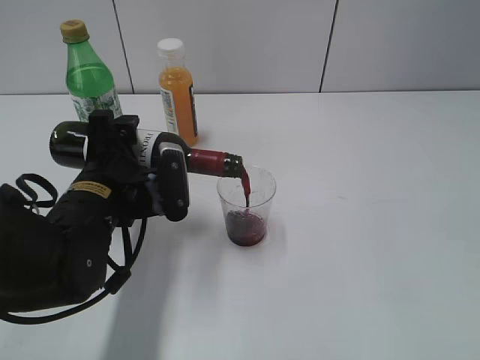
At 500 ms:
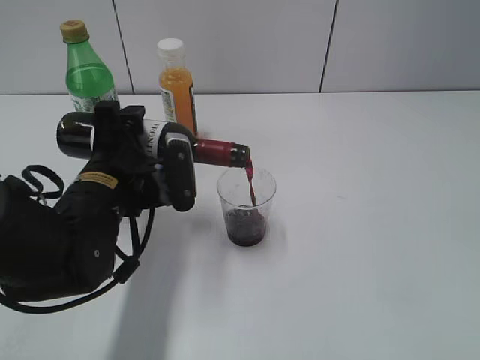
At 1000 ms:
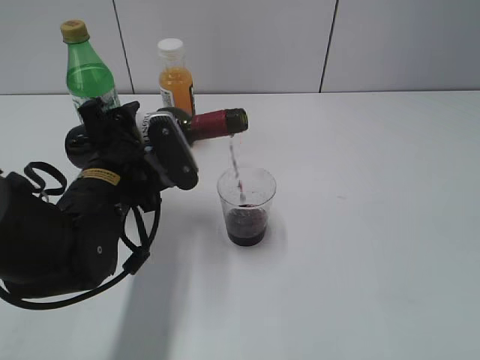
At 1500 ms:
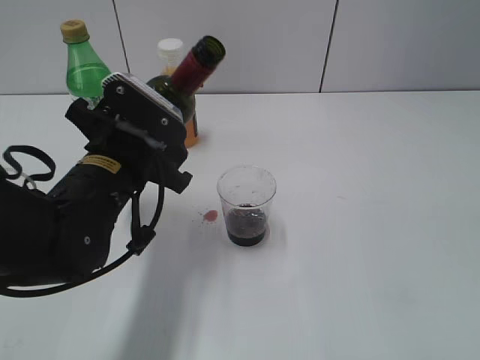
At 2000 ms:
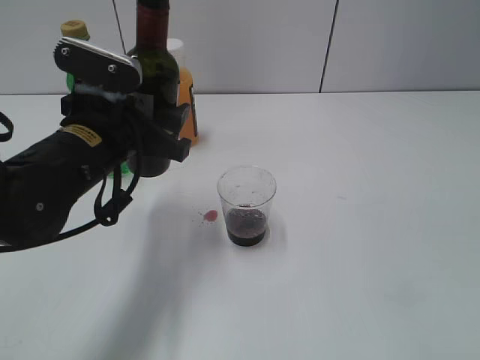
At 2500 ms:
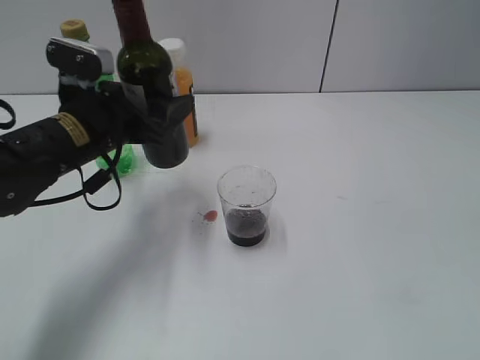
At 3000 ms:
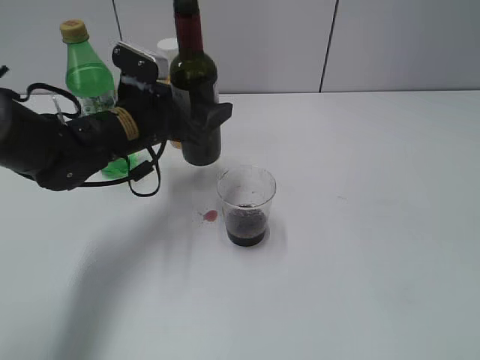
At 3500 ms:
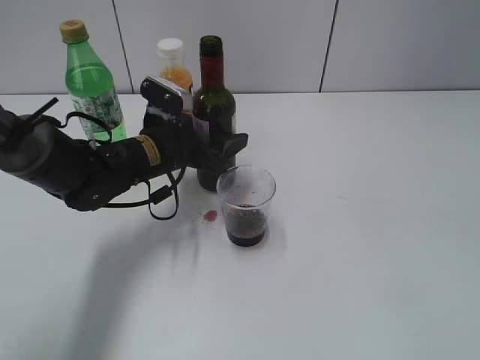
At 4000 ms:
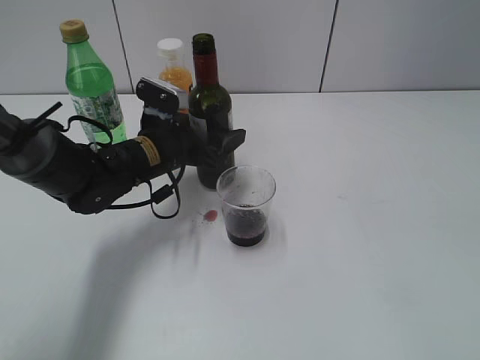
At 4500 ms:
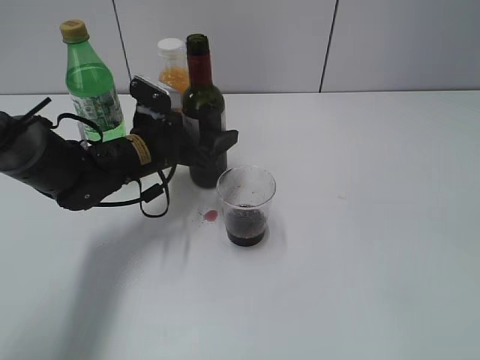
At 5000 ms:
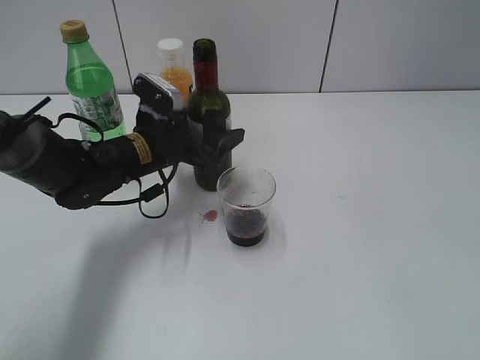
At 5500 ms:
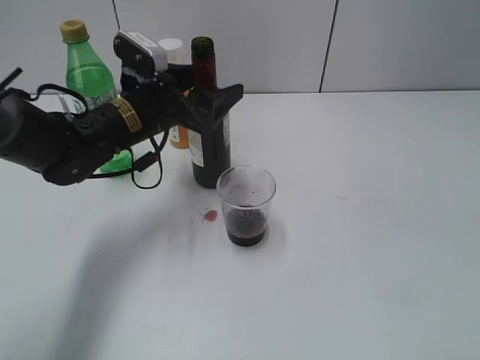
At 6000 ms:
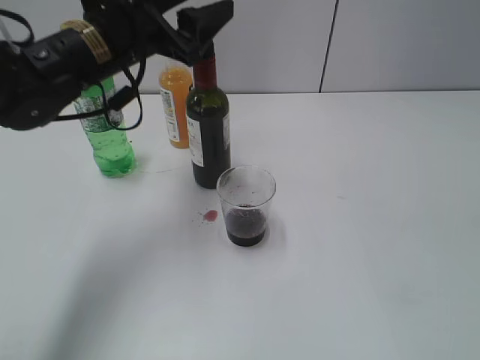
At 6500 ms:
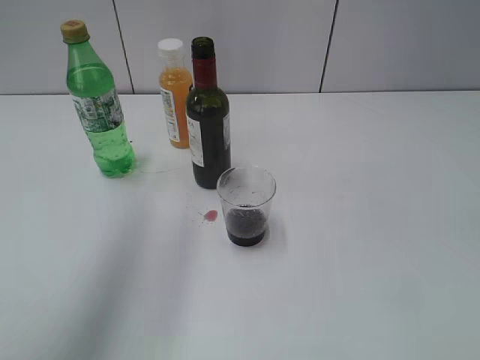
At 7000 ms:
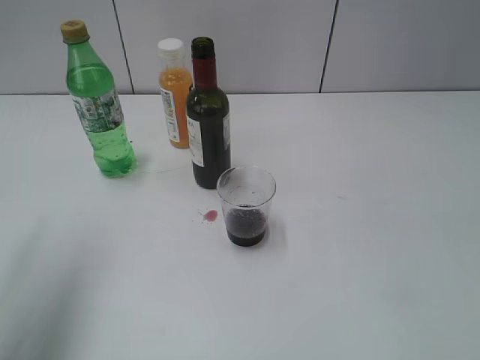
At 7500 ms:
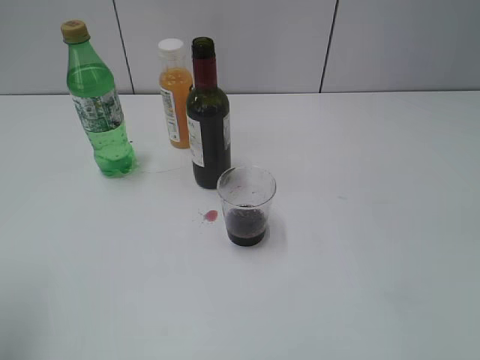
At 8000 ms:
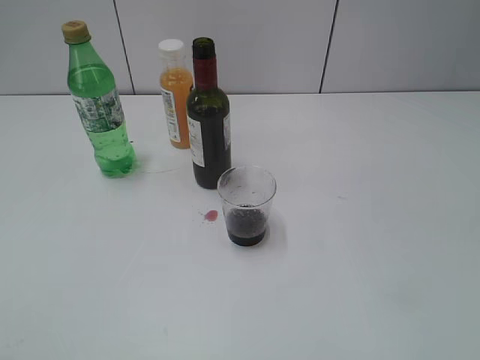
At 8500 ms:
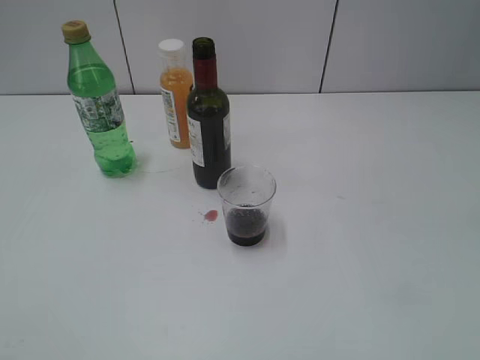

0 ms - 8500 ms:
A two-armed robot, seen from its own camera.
Step, 1500 ms - 5500 ms: Place the red wine bottle on the table with left gripper.
0 ms - 2000 ms: The left gripper shifts roughly 5 cm upward.
2000 ms - 4000 ms: The left gripper moves forward and downward, roughly 15 cm.
4000 ms - 6500 ms: The left gripper heads upward, covering roughly 30 cm.
6500 ms - 8500 ms: The left gripper travels backward and downward by roughly 30 cm.

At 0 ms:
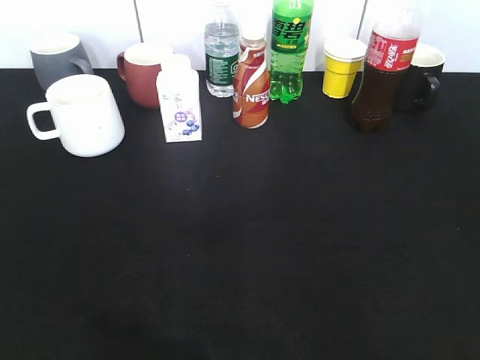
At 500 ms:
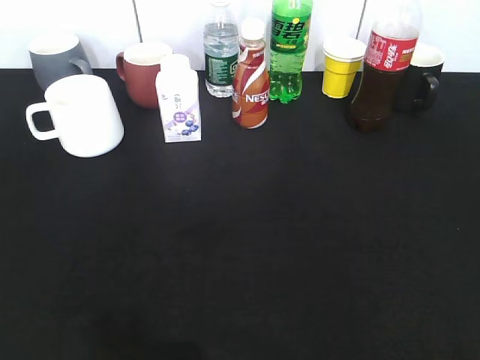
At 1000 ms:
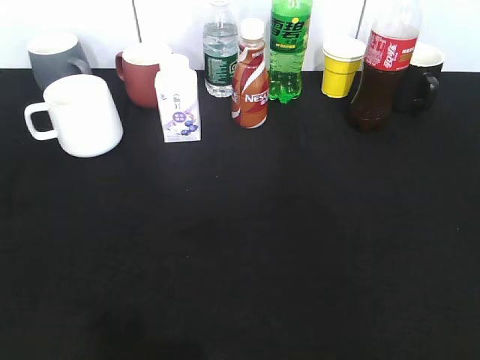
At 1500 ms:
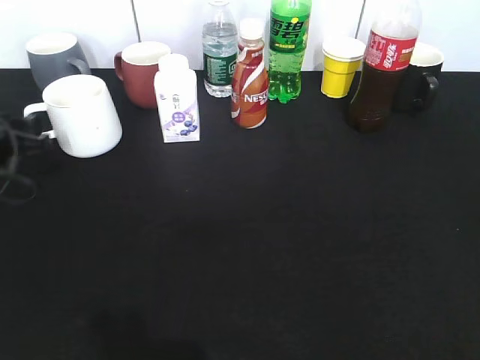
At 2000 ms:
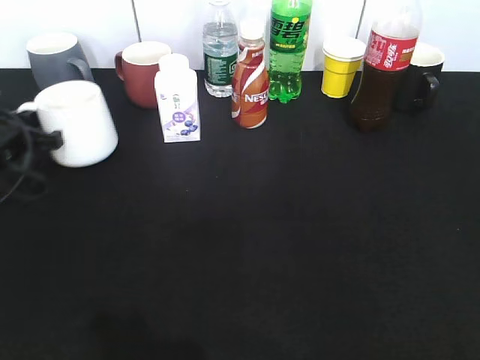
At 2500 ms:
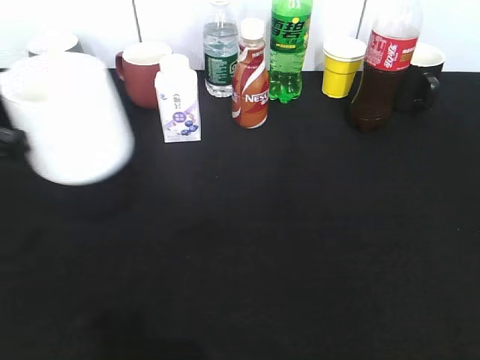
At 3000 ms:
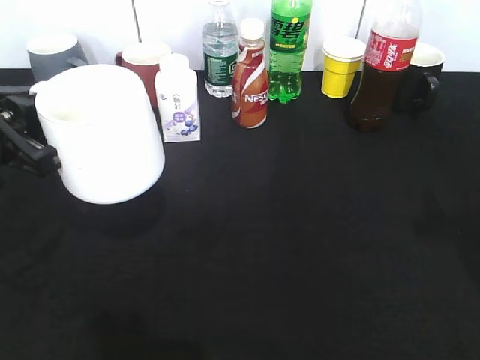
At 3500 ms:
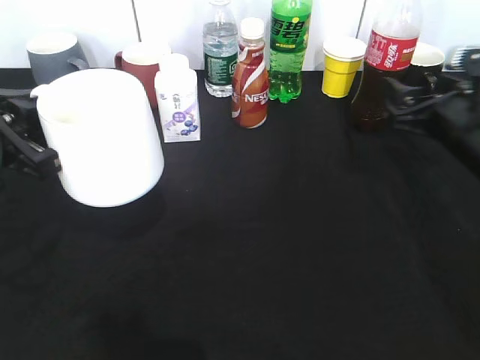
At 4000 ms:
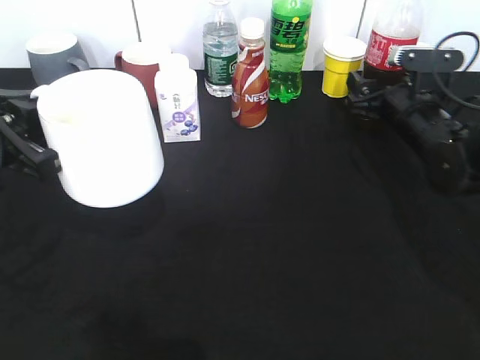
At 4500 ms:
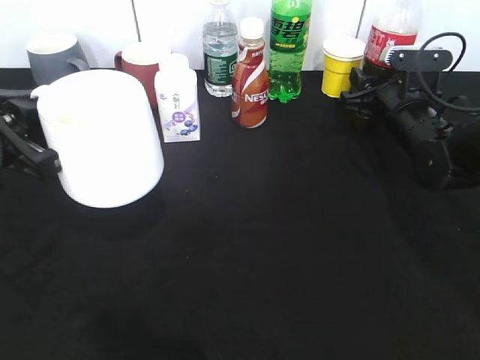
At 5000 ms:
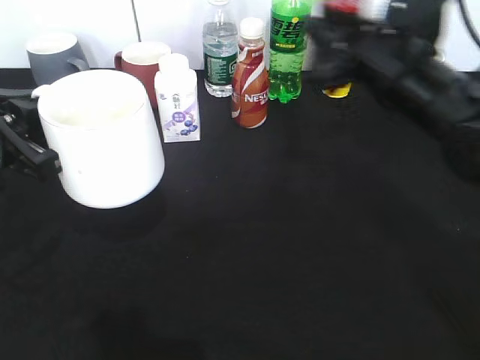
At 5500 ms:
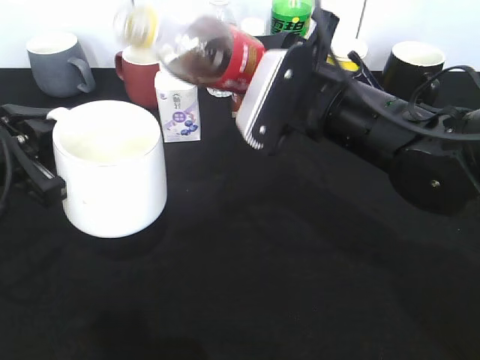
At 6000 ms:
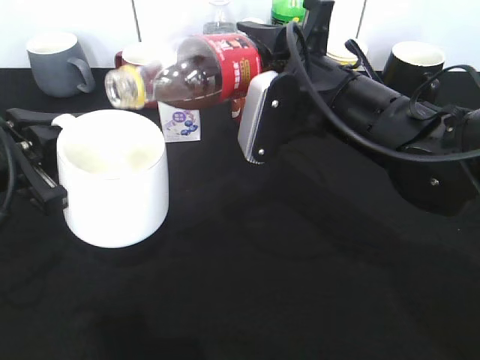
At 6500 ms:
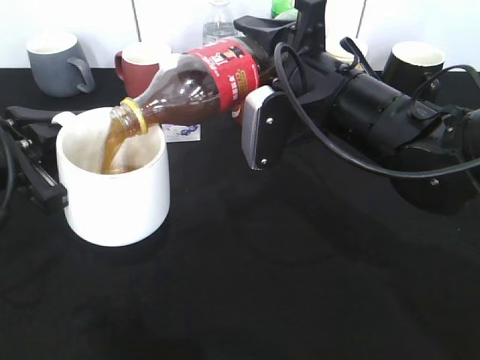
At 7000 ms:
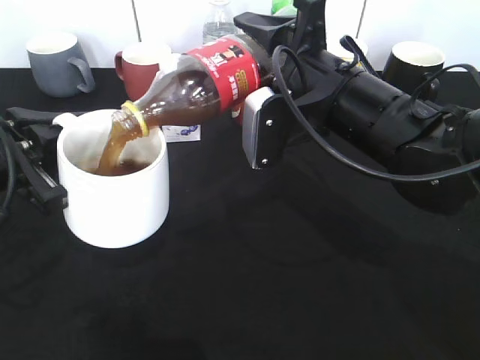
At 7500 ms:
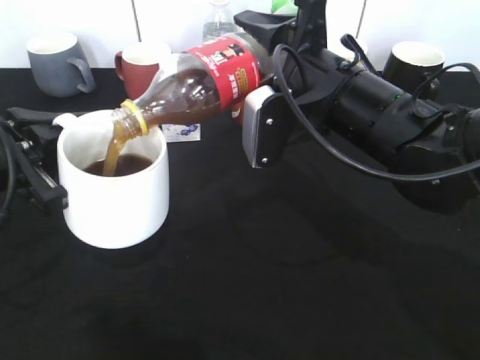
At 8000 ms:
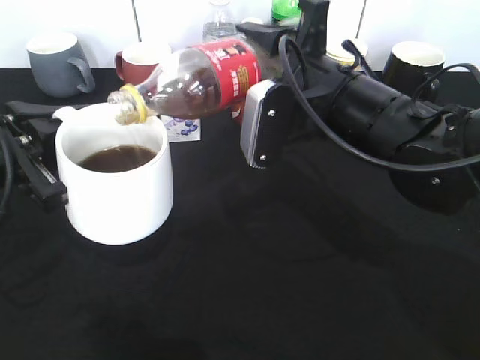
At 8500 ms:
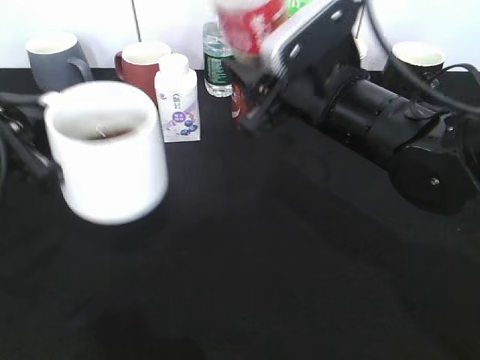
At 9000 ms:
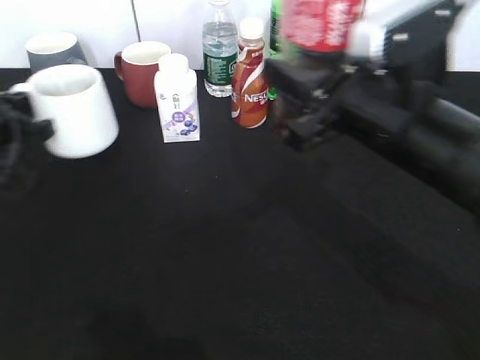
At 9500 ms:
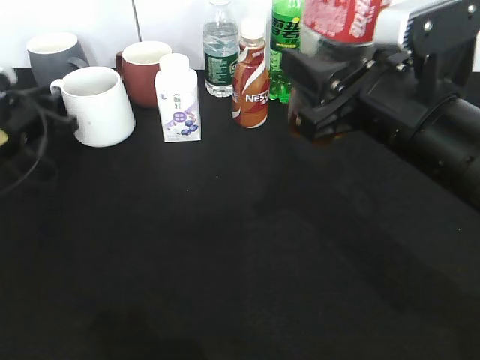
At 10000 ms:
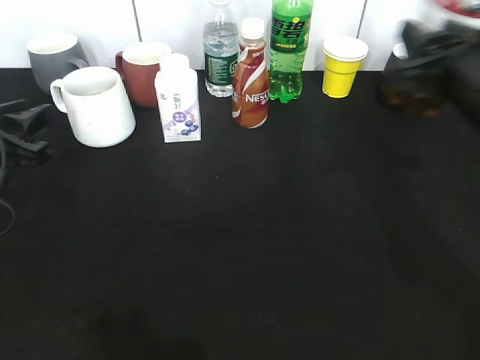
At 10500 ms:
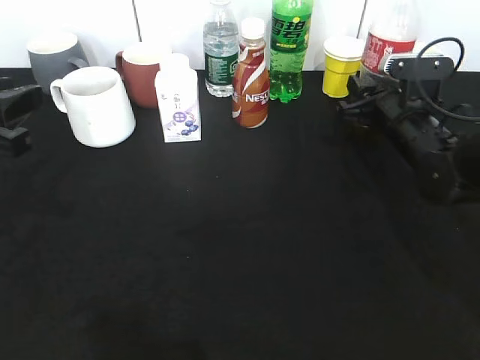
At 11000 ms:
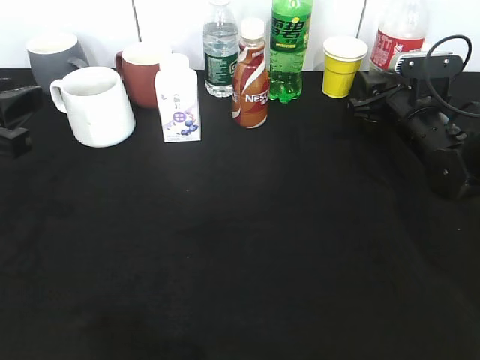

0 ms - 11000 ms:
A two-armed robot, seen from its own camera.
Step, 0 ms - 1500 ms: Grasp the white cup with left gripper.
Step, 2000 ms - 3000 ms: Lift the white cup with left gripper.
Step, 3500 ms - 4000 ms: Grasp the bottle with cola with right gripper.
Step, 4500 ms - 8000 ms: Pour the cola from bottle to cup with right gripper.
Step, 8500 ms - 9500 ms: Place the white cup on the table with left gripper.
0 ms - 2000 ms: The left gripper is displaced forward and downward by about 35 cm, and closes up.
2000 ms - 3500 ms: The right gripper shifts some 30 cm forward. Meanwhile the left gripper moves backward, upward and to the right, approximately 15 cm.
3500 ms - 5500 ms: The right gripper goes roughly 15 cm to the left, and closes.
7500 ms - 9000 ms: The right gripper goes approximately 5 cm backward, while the left gripper travels forward, to the left and downward by about 15 cm.
9000 ms - 11000 ms: The right gripper moves forward, downward and to the right, roughly 25 cm. Meanwhile the left gripper moves backward and upward, about 15 cm, and opens.

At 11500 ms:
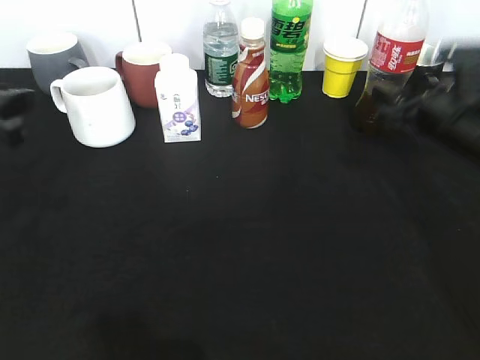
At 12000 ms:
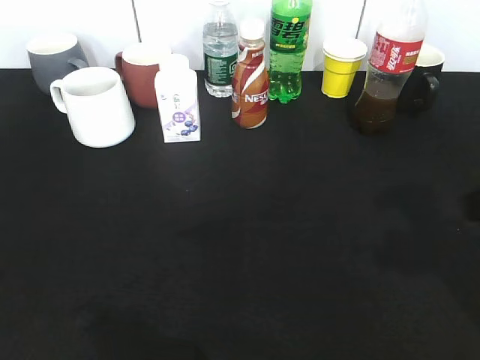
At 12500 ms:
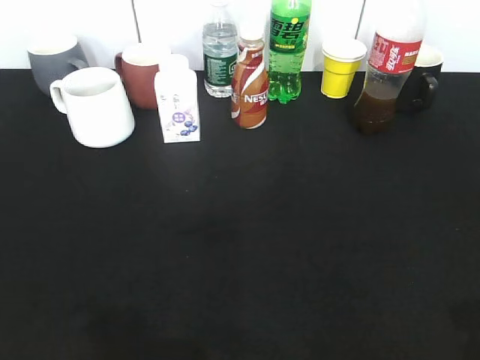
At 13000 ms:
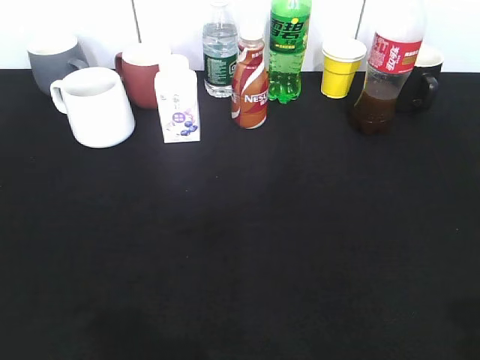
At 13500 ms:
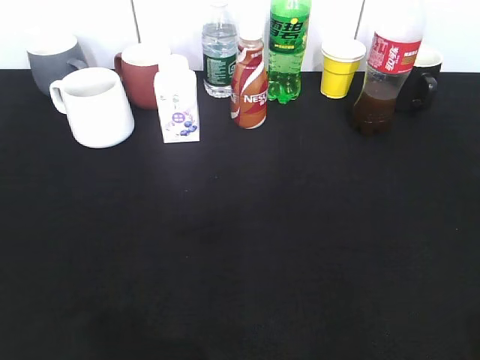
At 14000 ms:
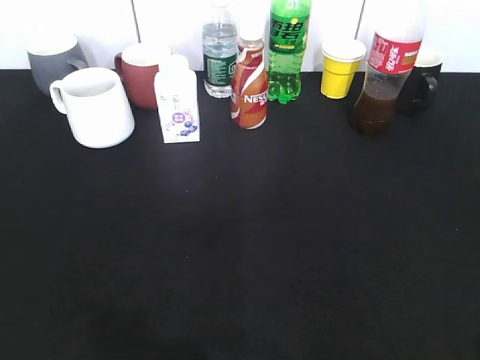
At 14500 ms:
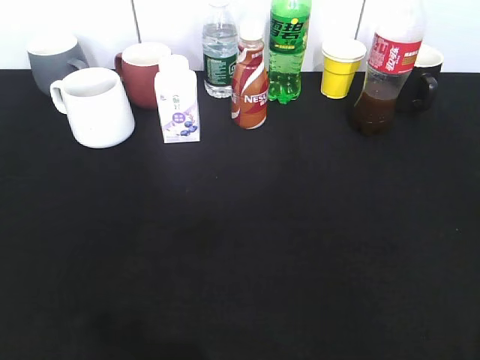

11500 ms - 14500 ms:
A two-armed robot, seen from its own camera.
11500 ms - 13000 ms: Both grippers travel together backward, approximately 25 cm.

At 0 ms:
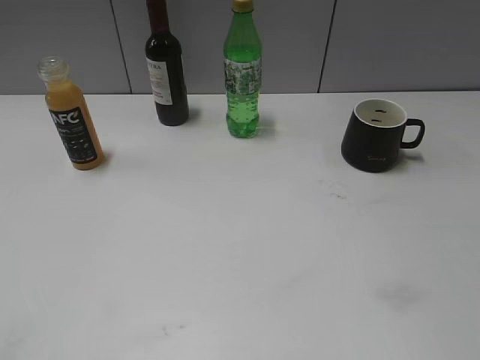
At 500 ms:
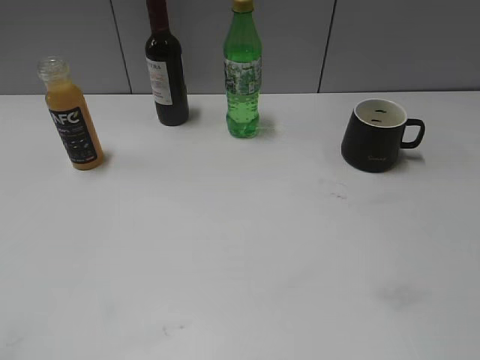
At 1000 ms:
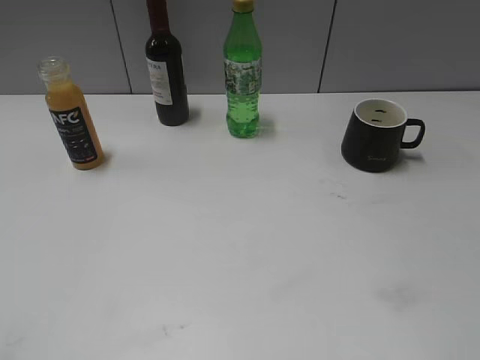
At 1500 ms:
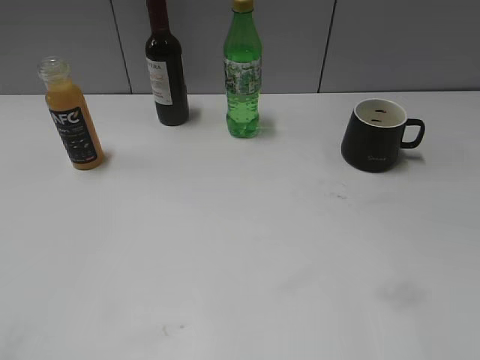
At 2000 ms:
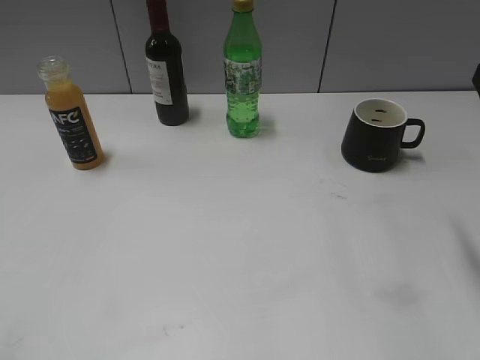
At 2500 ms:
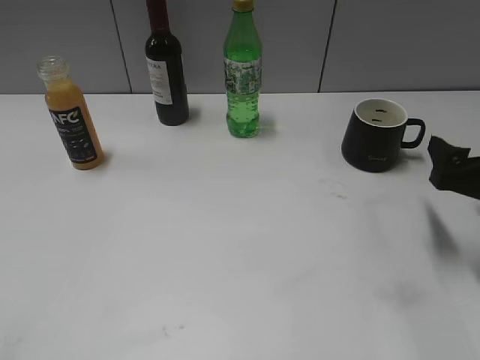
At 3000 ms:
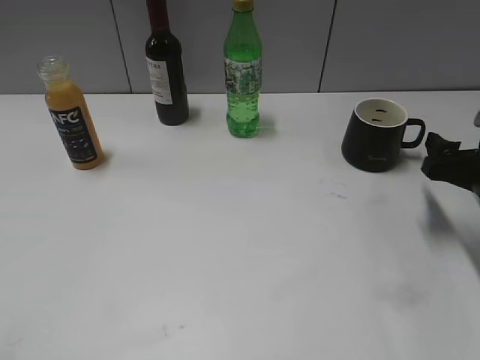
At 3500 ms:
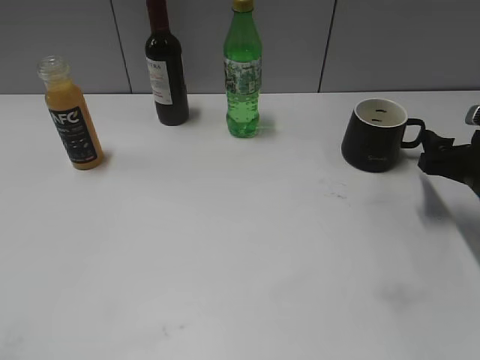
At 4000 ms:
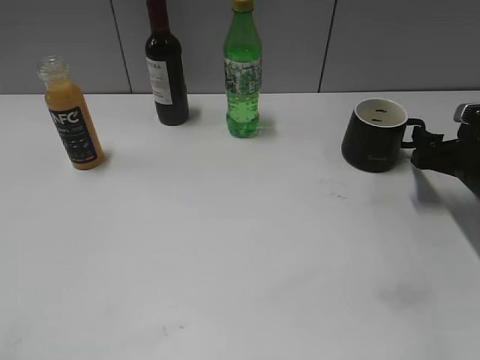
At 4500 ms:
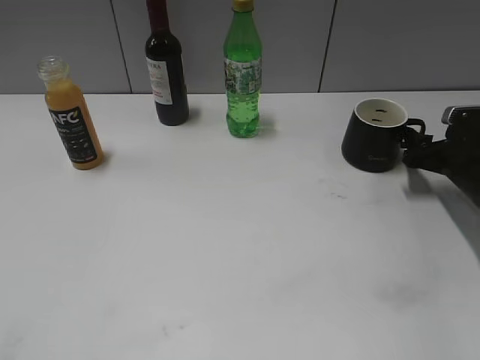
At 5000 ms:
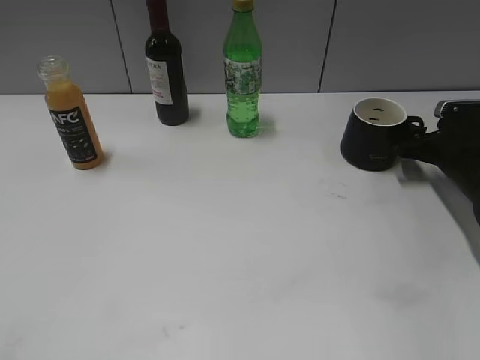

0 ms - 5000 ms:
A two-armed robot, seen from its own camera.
2500 ms - 5000 ms: The right gripper goes about 15 cm forward and downward.
